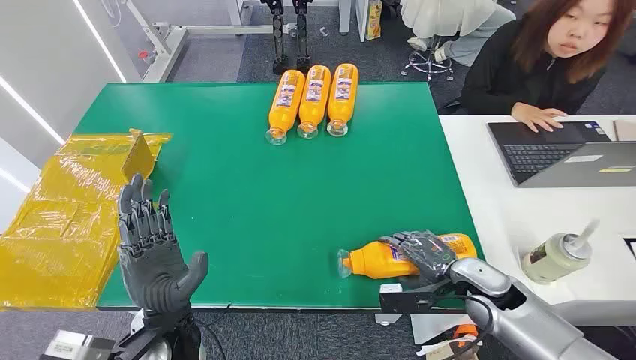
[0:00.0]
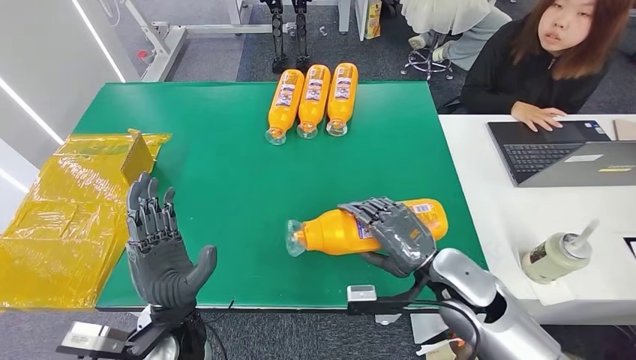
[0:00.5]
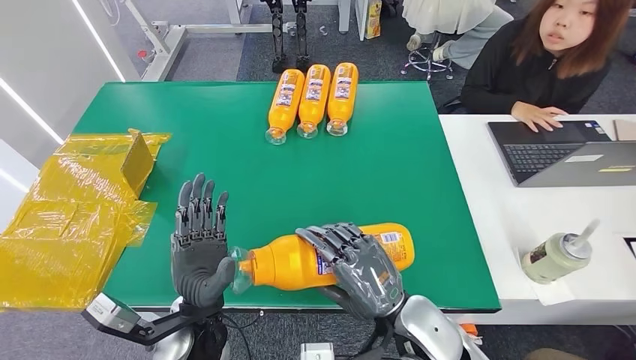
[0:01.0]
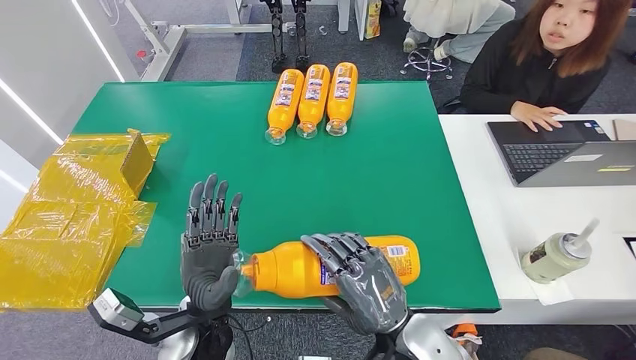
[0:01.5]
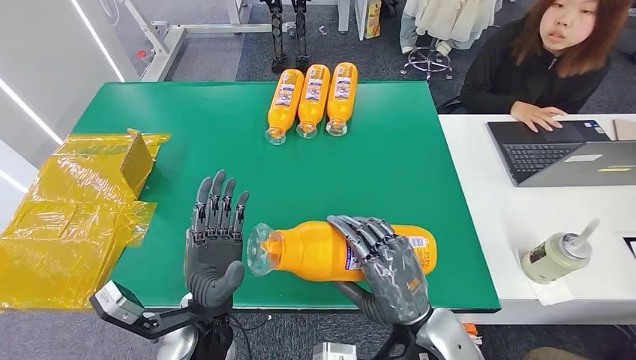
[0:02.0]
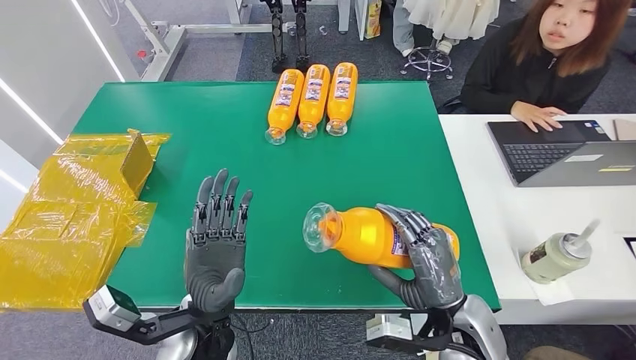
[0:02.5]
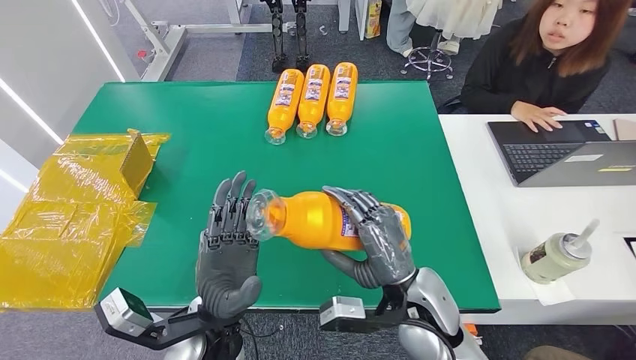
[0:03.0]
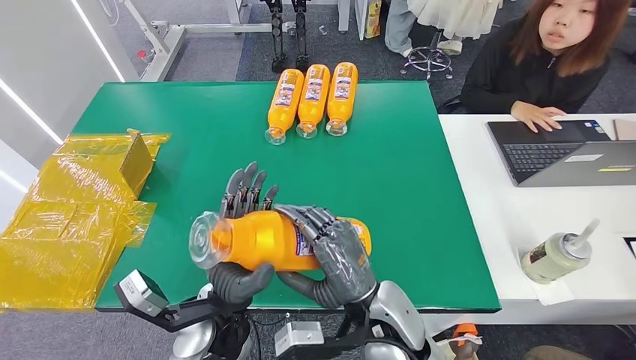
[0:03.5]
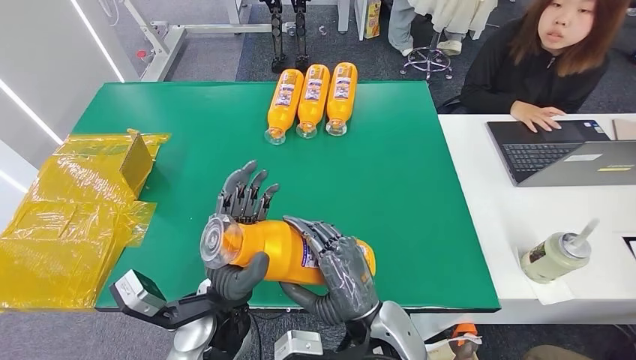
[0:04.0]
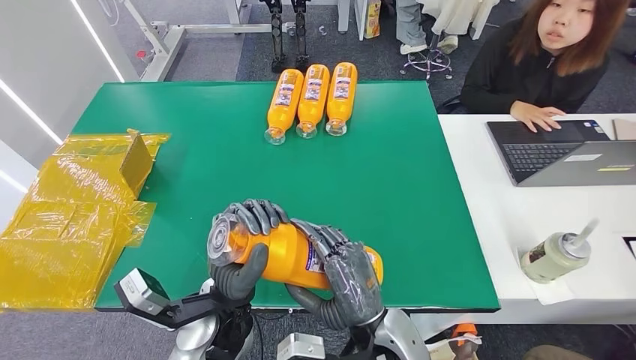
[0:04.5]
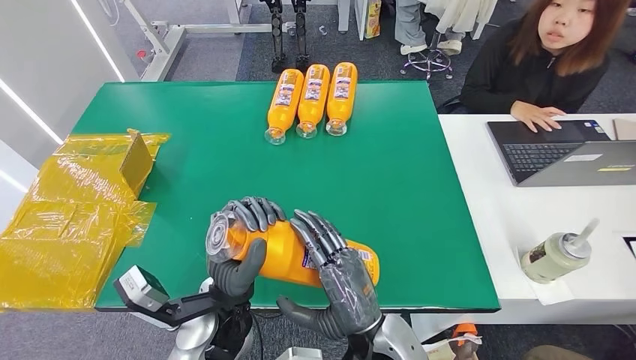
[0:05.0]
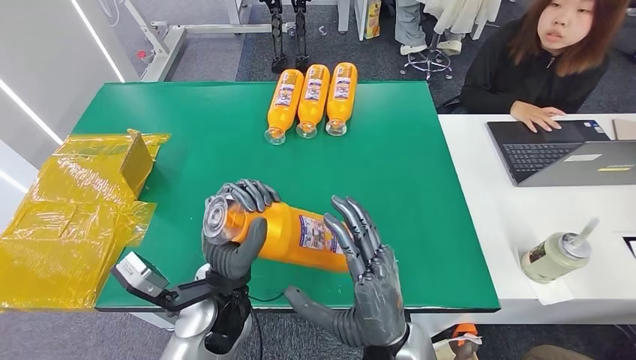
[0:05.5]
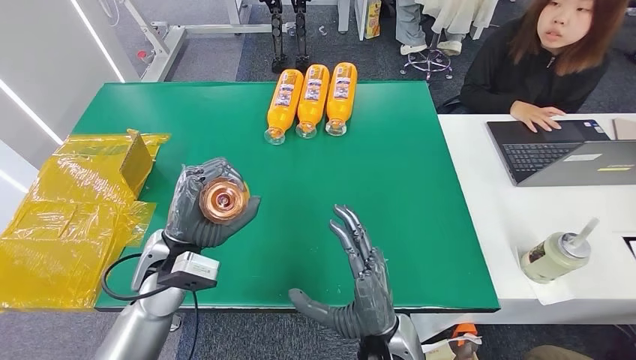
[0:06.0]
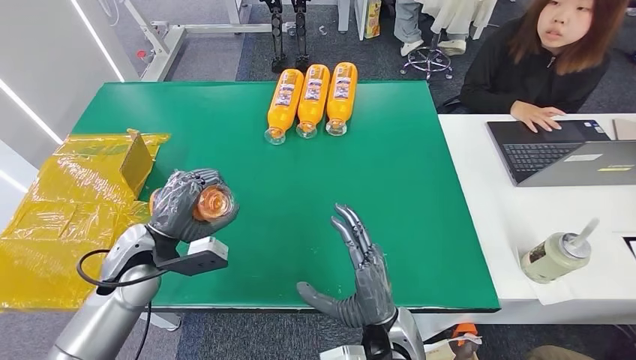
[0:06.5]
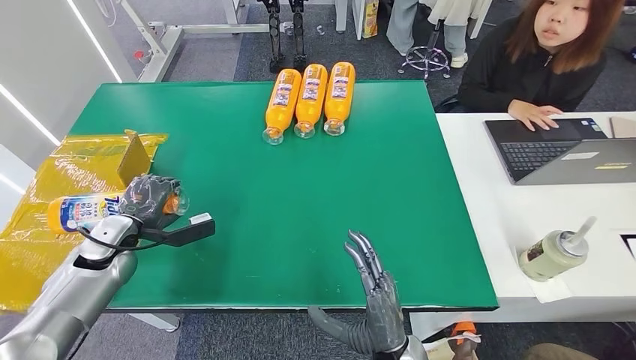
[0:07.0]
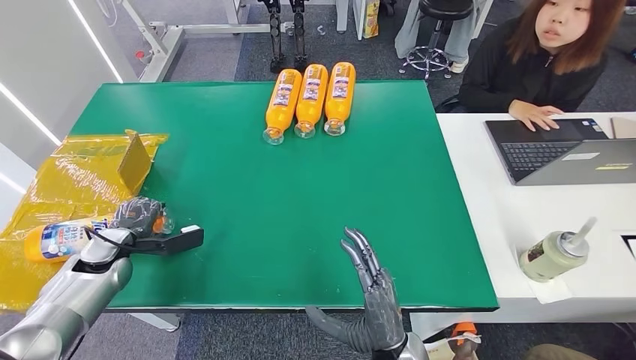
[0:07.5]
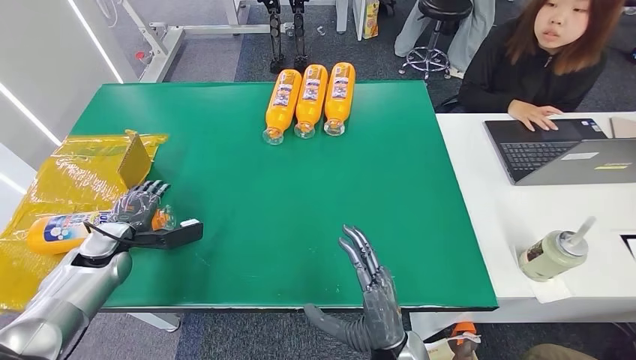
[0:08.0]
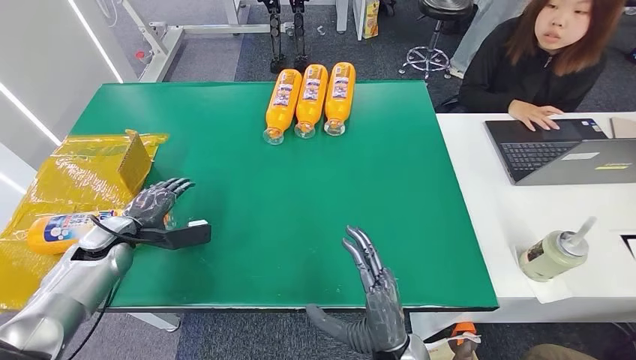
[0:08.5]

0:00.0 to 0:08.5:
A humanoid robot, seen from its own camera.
Step, 0:00.0 to 0:01.5: Pick up the bottle from the table.
Step, 0:02.5 to 0:08.5: Turn the bottle to the front side.
0:02.0 to 0:04.0: The right hand is displaced to the left by approximately 5 cm.
0:04.0 to 0:06.5: The right hand travels downward by roughly 5 cm. The left hand heads to the left and forward, covering about 20 cm.
0:06.5 to 0:08.5: The left hand shifts approximately 15 cm to the left.
